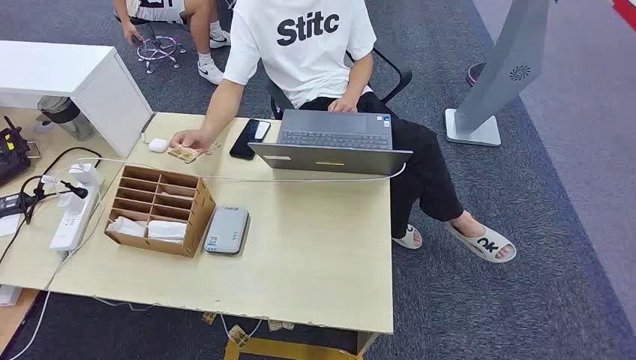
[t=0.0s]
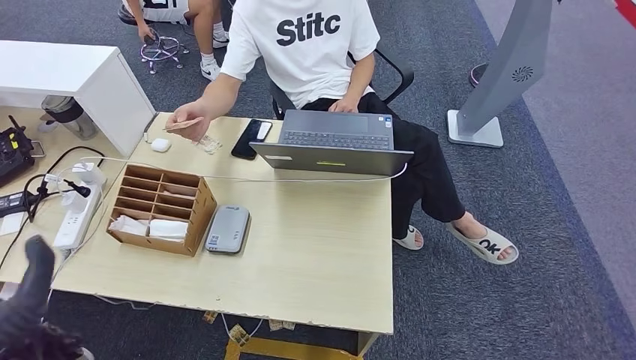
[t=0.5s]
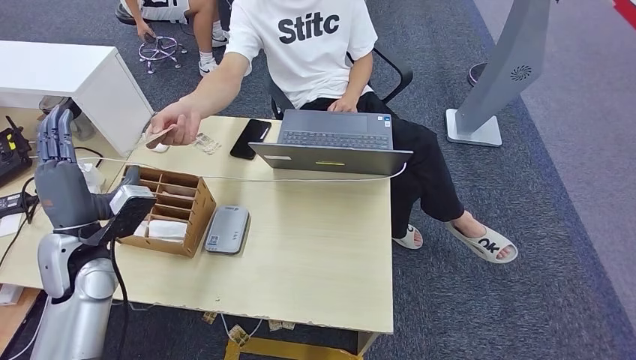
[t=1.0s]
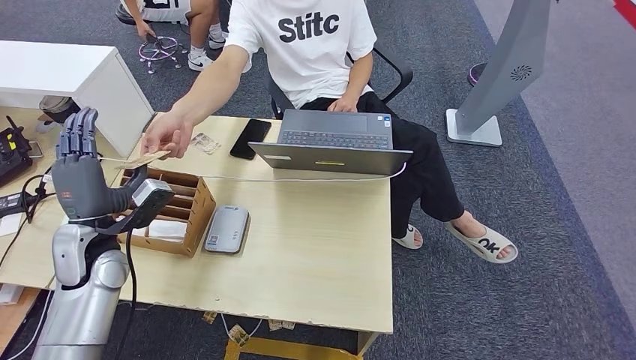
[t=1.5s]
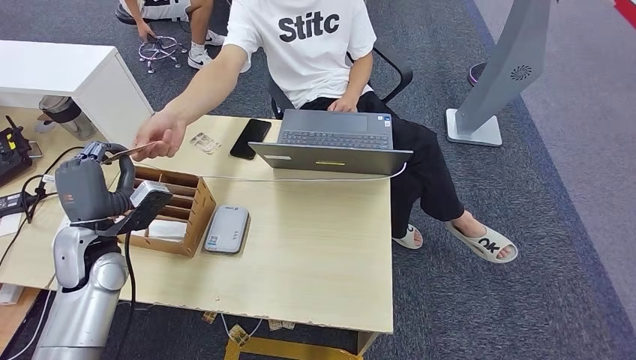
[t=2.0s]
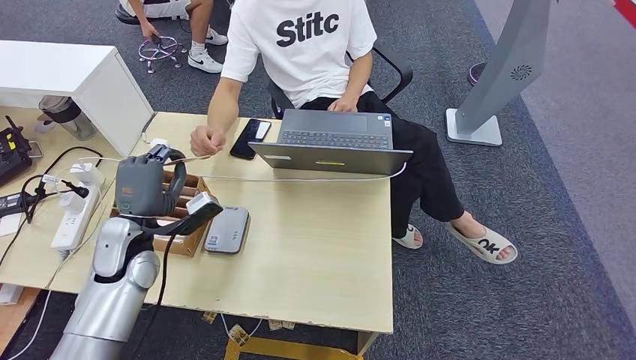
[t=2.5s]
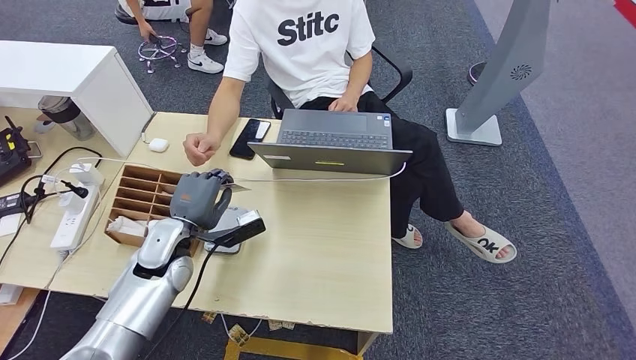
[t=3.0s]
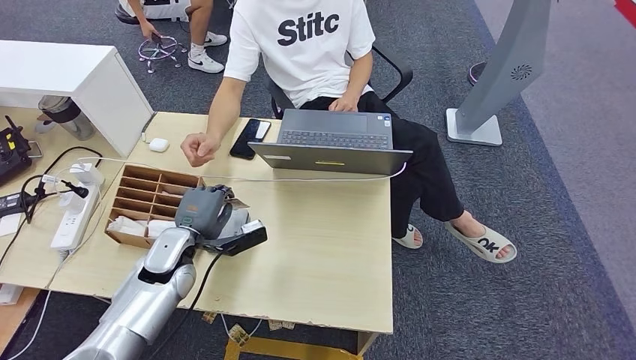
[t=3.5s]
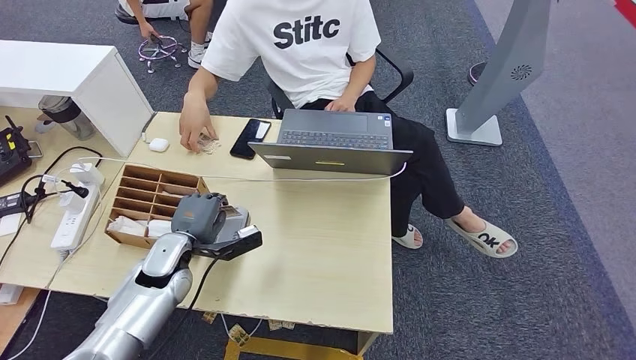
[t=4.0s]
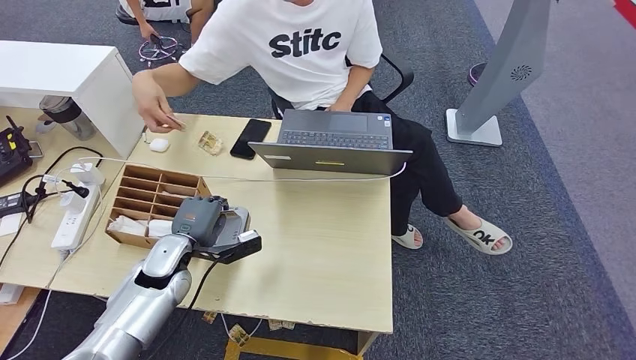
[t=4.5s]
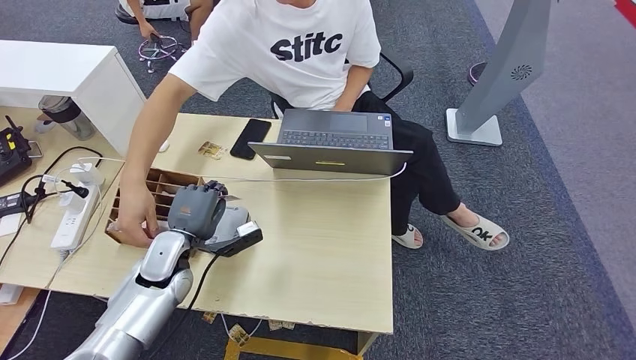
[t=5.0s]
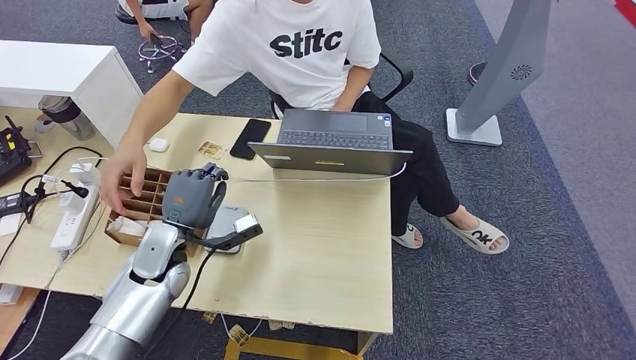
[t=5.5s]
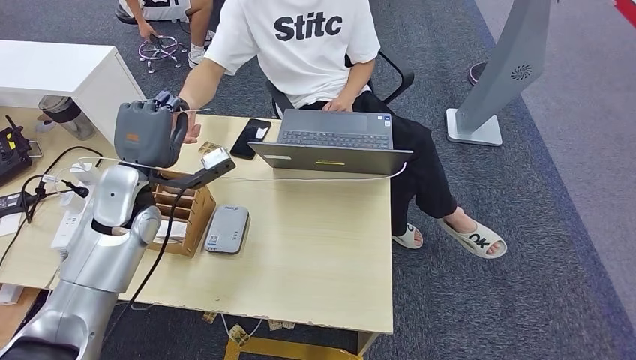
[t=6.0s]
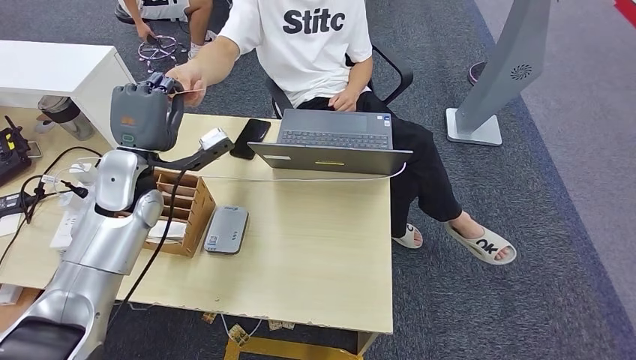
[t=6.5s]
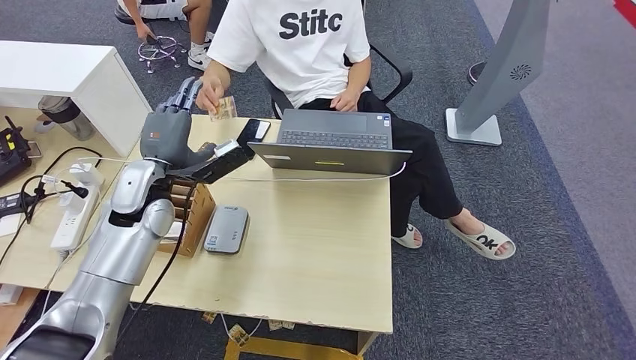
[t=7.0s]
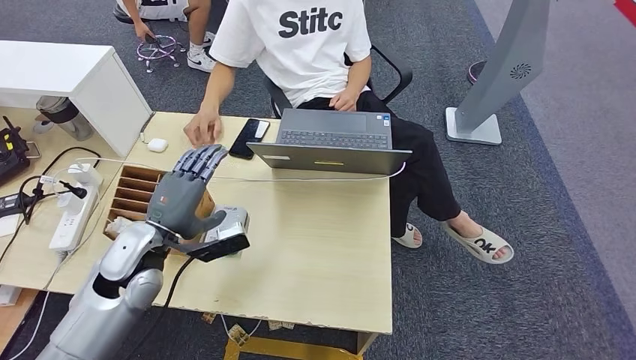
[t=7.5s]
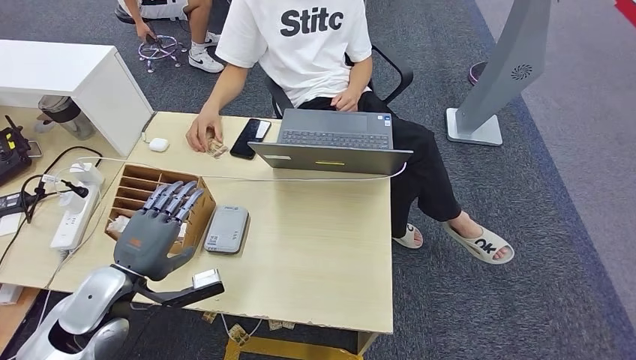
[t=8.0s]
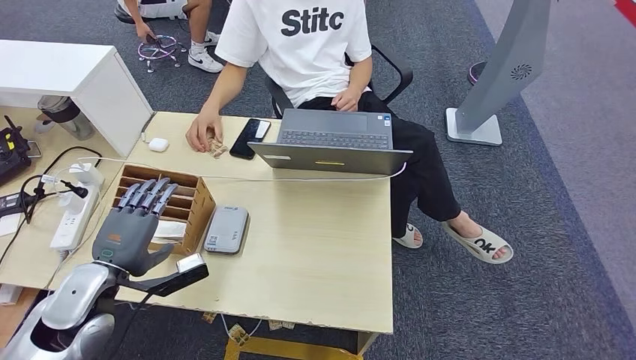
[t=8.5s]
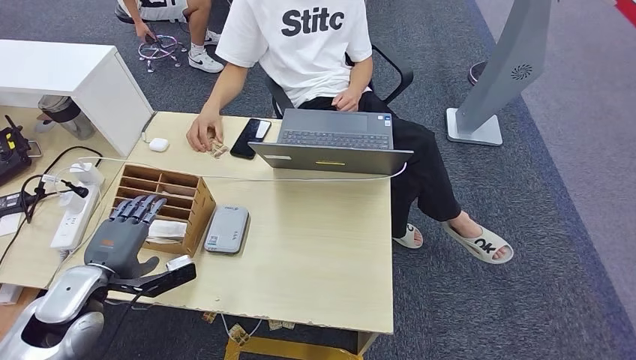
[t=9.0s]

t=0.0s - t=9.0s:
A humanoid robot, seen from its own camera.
Step, t=0.0s - t=2.0s: Take the ID card from the person's hand.
Step, t=2.5s - t=4.5s: Place the ID card on the card reader.
Step, t=5.0s - t=6.5s: Hand the ID card to the person.
t=2.0s - t=4.5s: The left hand goes about 10 cm downward and to the right.
t=4.5s - t=7.0s: The left hand shifts approximately 15 cm upward and forward.
t=7.0s - t=9.0s: The left hand is displaced backward, to the left and downward by some 20 cm.

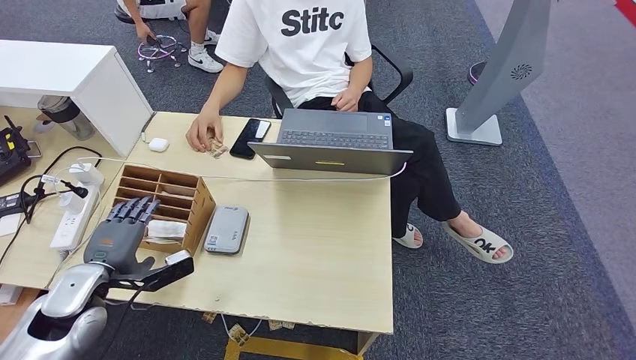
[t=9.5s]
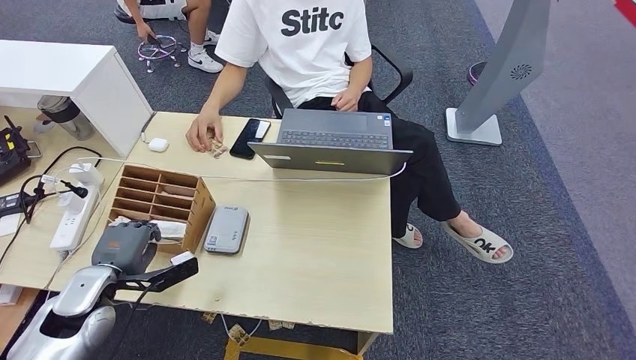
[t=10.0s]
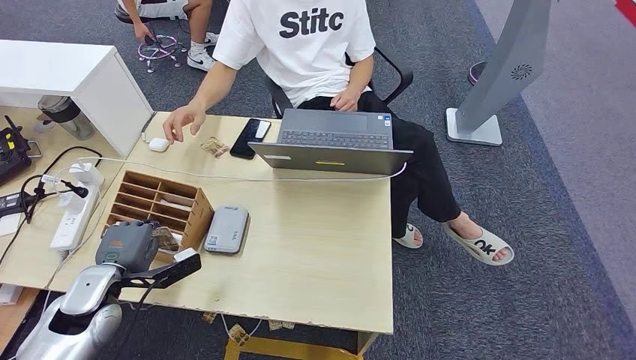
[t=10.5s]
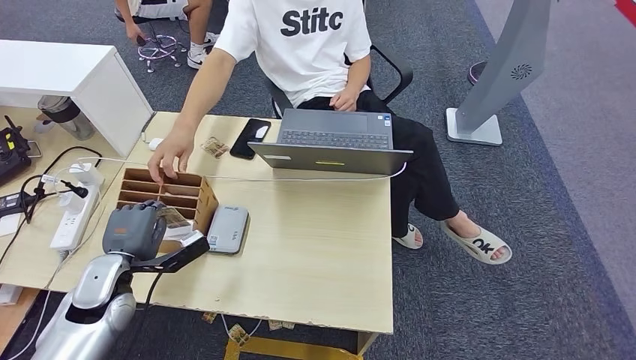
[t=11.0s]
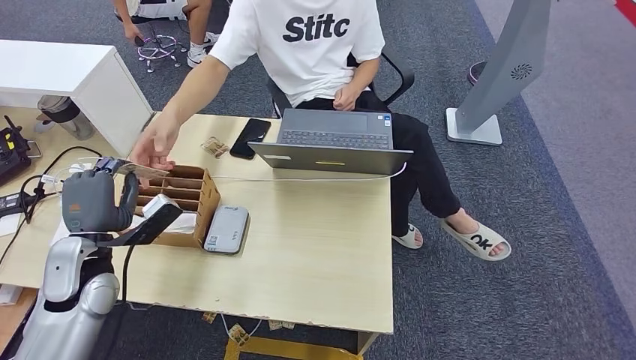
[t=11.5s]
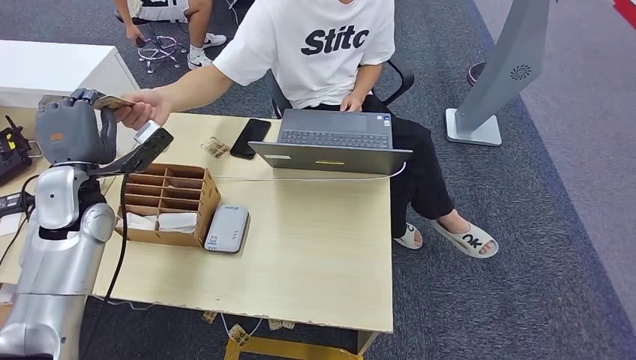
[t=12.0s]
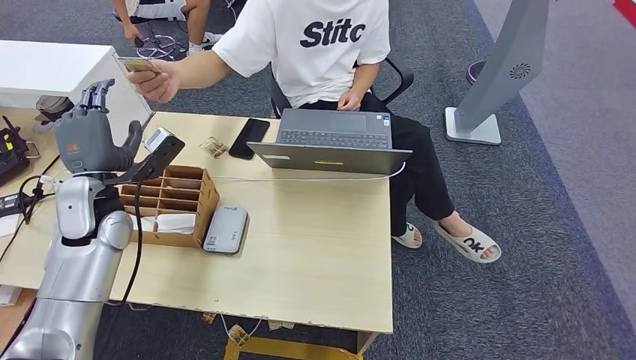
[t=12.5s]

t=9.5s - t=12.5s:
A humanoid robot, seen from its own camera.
Step, t=9.5s - t=11.5s: Pick up the room key from the key card box.
Step, t=12.0s - t=12.5s: Hand the room key to the person.
t=9.5s - t=11.0s: The hands stay close to where they were, moving slightly.
t=11.0s - t=12.5s: The left hand is displaced upward and forward by about 15 cm.
